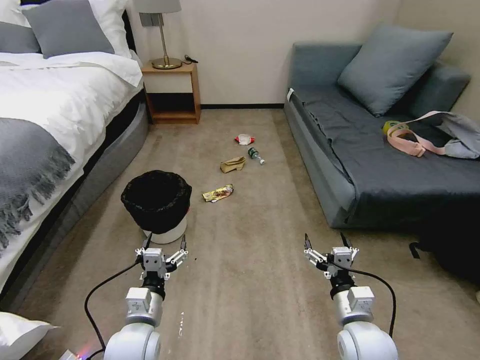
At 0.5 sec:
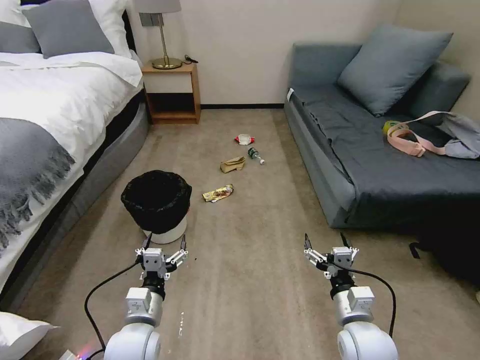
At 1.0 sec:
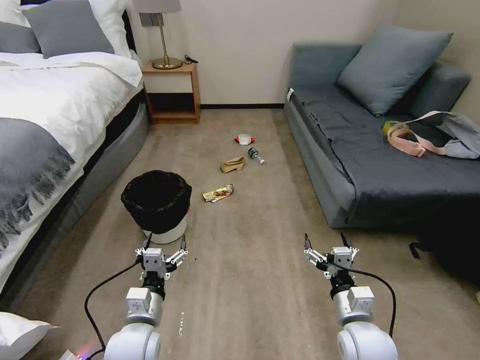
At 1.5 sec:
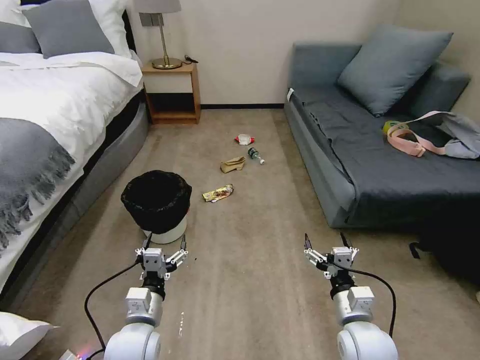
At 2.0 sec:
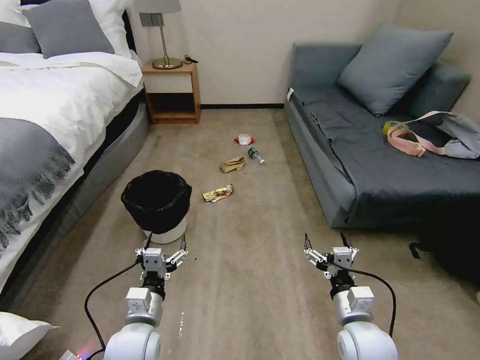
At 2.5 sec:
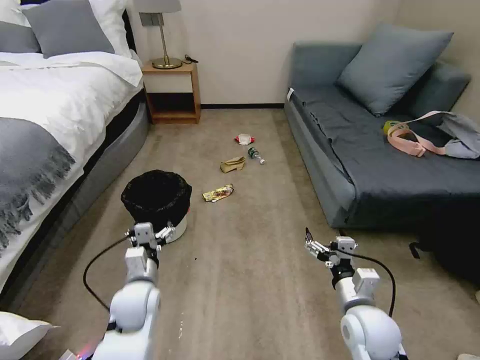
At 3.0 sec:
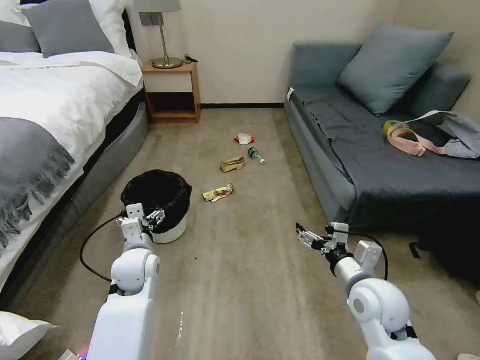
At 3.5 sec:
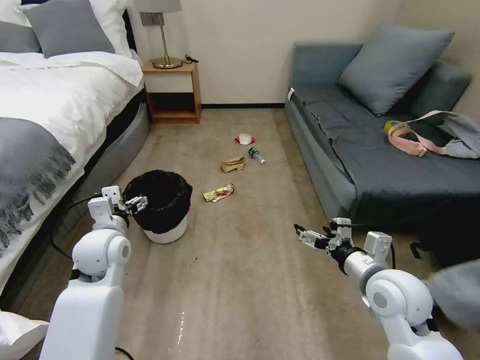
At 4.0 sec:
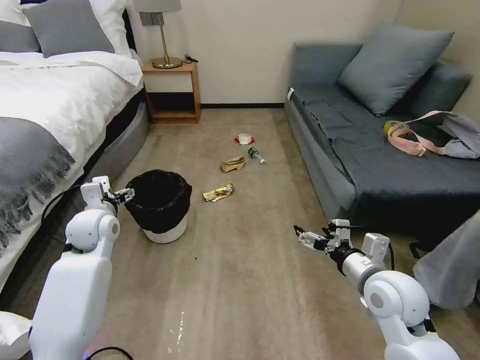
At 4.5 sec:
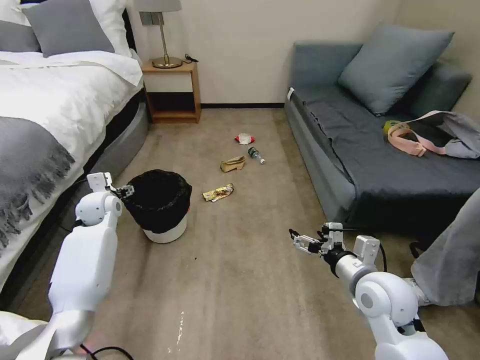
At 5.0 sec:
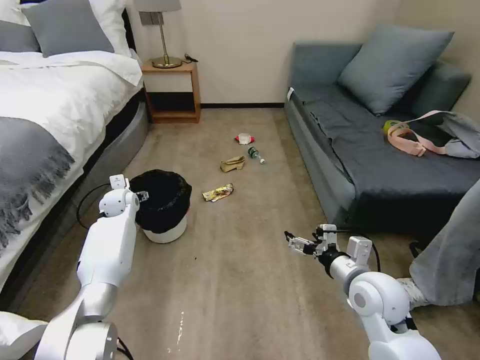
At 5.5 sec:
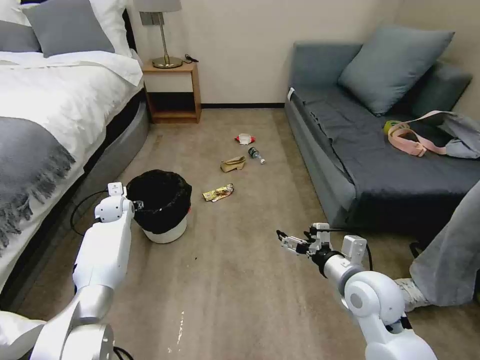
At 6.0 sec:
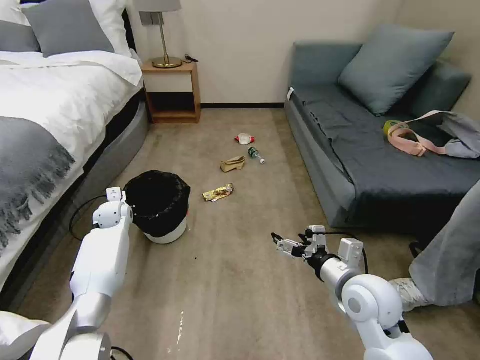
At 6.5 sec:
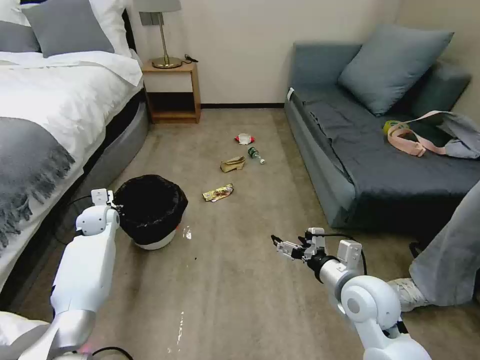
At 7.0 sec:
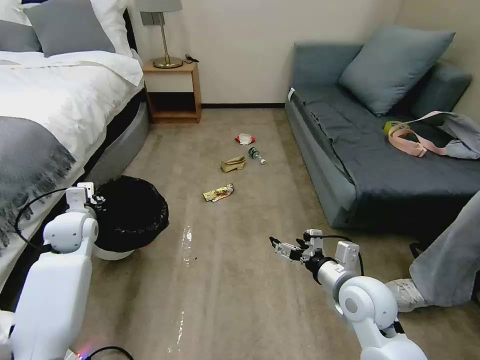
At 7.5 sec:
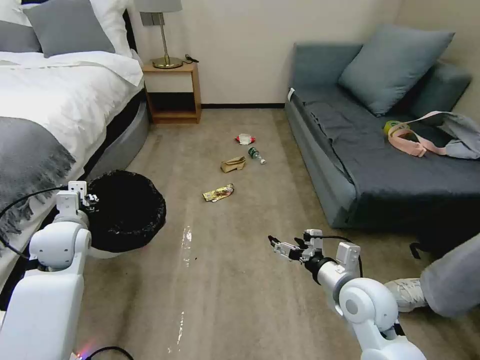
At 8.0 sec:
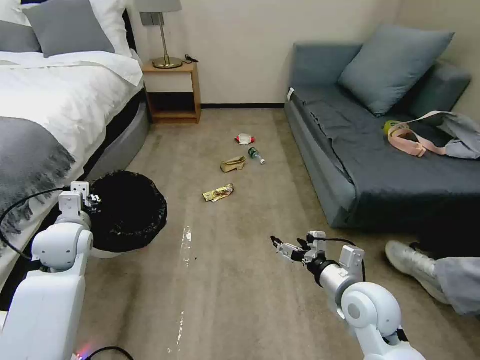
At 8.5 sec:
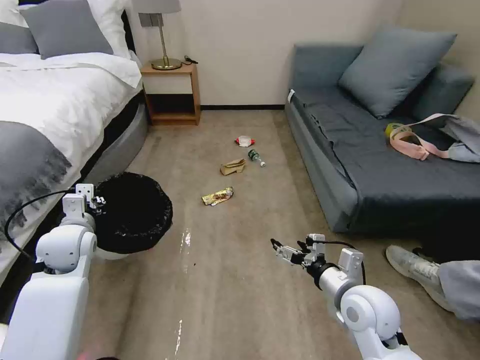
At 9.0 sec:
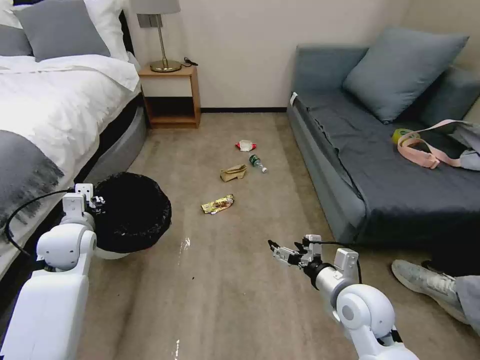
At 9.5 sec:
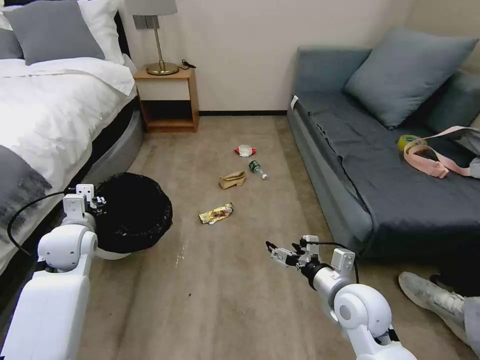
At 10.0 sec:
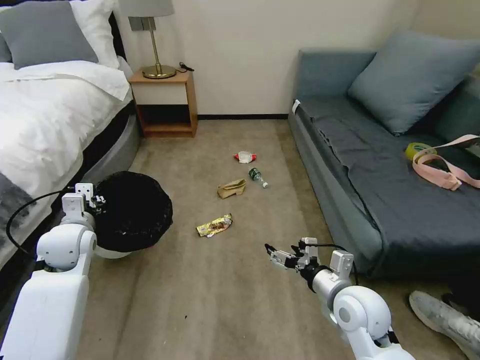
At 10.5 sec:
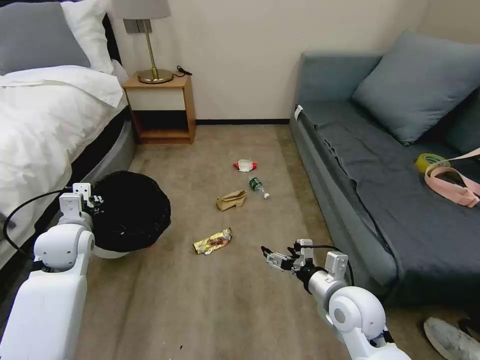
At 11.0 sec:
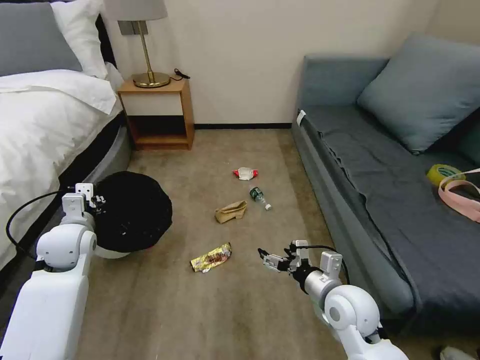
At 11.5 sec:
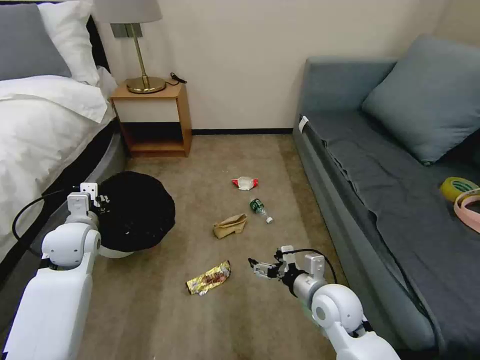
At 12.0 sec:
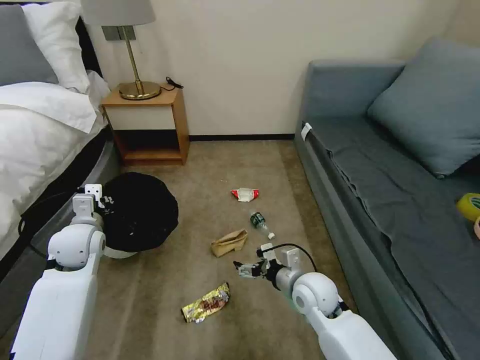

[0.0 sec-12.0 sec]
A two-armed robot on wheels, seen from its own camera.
Task of the whole recording: Pick up the trash bin, then pick up the garbage on the floor and place it into the trash bin.
2.0 sec to 4.0 sec: The right gripper goes some 10 cm upward and forward. Meanwhile the left gripper shifts some 25 cm forward, to the left and upward.
4.0 sec to 6.0 sec: The left gripper heads forward and downward, covering some 15 cm, and closes its fingers.
6.0 sec to 8.0 sec: The left gripper heads backward and upward, covering roughly 20 cm.
10.0 sec to 12.0 sec: The right gripper is displaced to the left, downward and forward by about 10 cm.

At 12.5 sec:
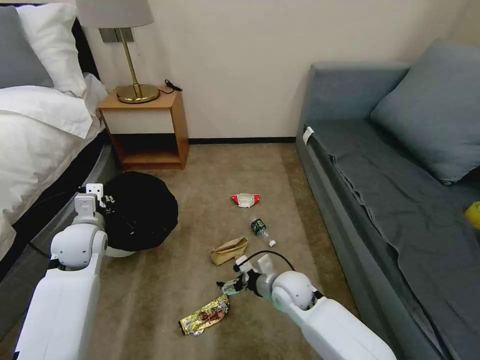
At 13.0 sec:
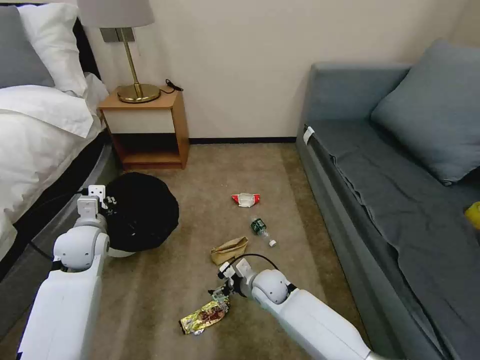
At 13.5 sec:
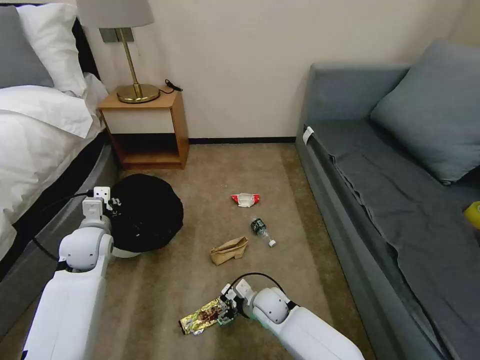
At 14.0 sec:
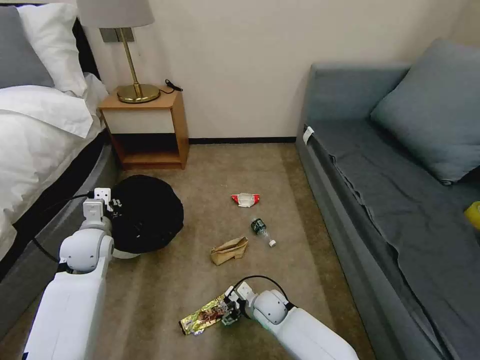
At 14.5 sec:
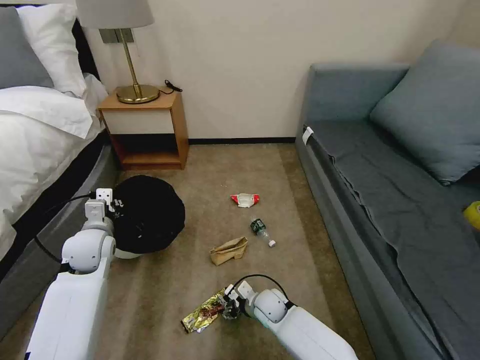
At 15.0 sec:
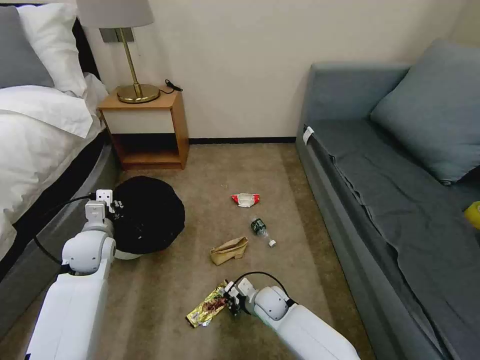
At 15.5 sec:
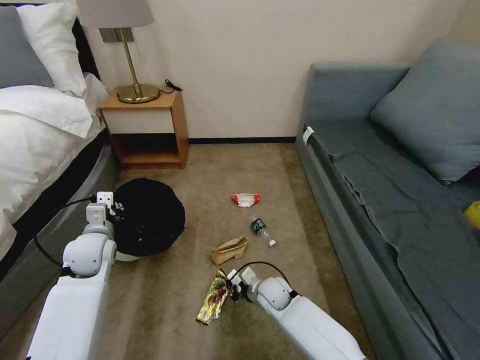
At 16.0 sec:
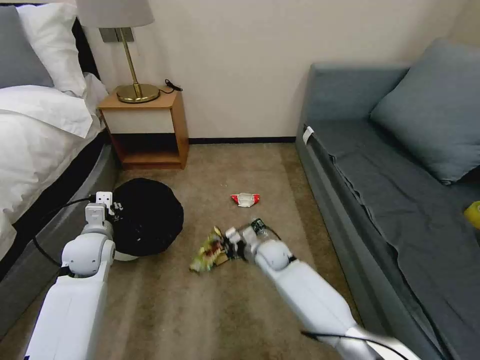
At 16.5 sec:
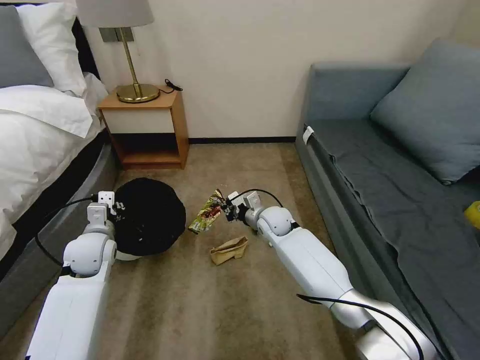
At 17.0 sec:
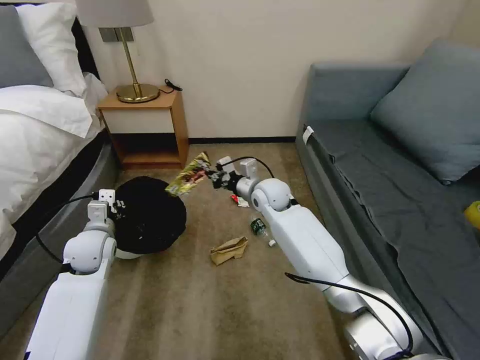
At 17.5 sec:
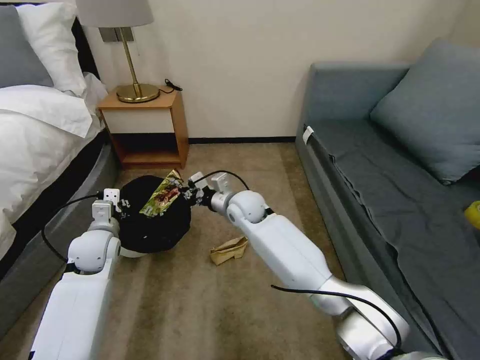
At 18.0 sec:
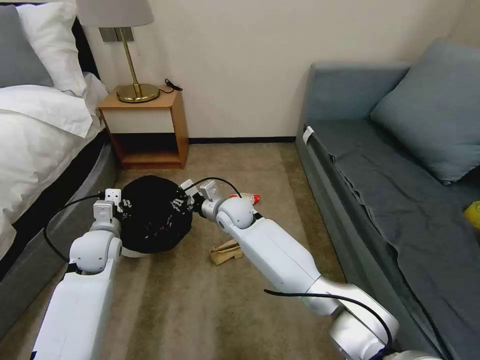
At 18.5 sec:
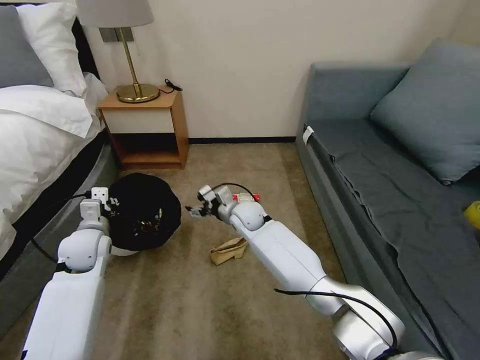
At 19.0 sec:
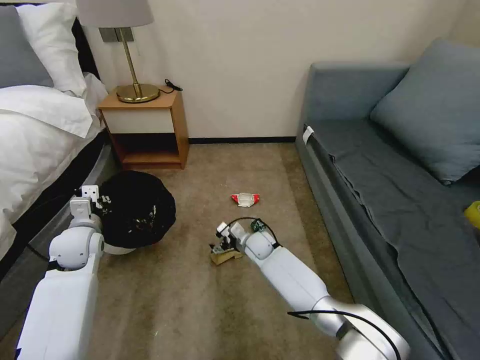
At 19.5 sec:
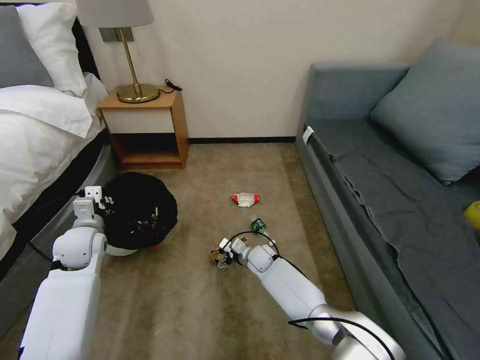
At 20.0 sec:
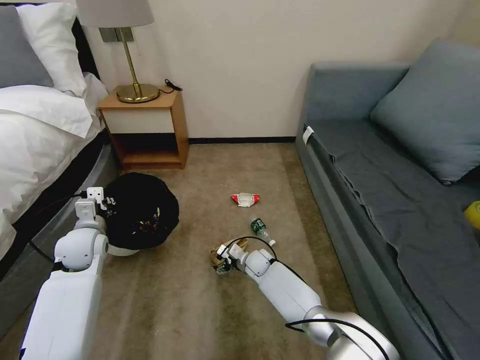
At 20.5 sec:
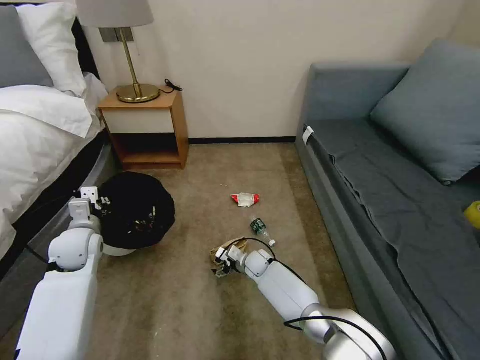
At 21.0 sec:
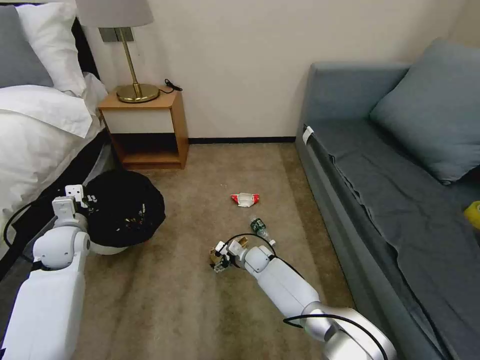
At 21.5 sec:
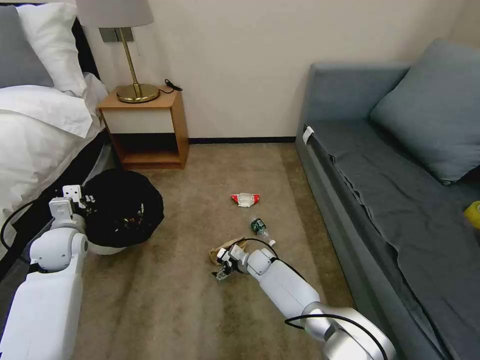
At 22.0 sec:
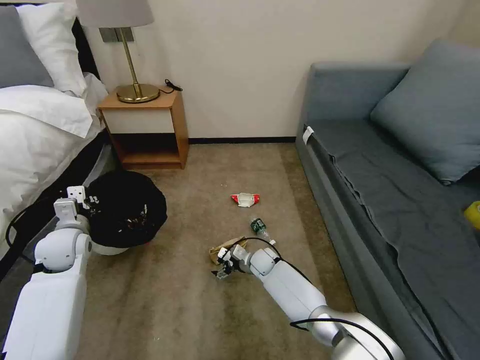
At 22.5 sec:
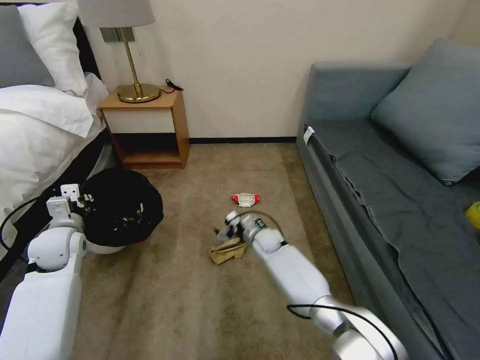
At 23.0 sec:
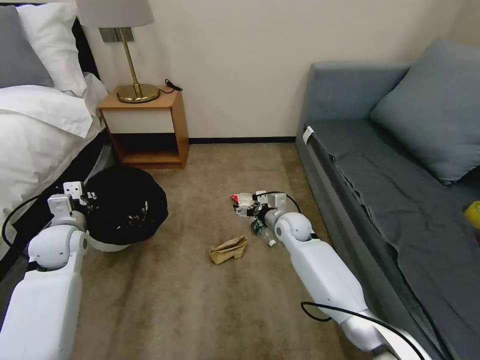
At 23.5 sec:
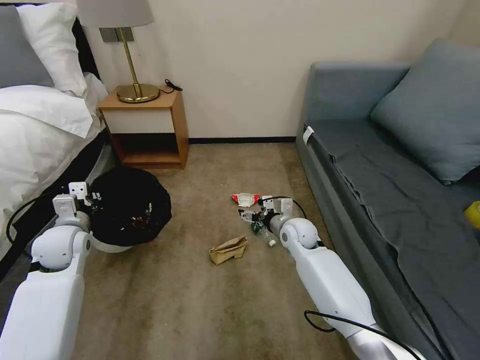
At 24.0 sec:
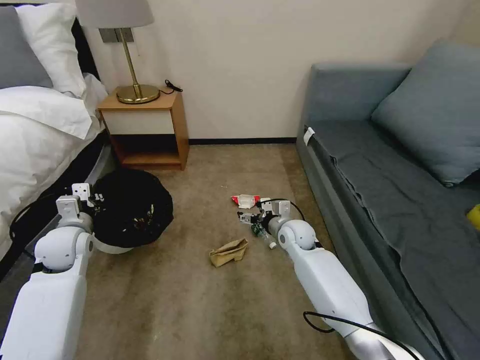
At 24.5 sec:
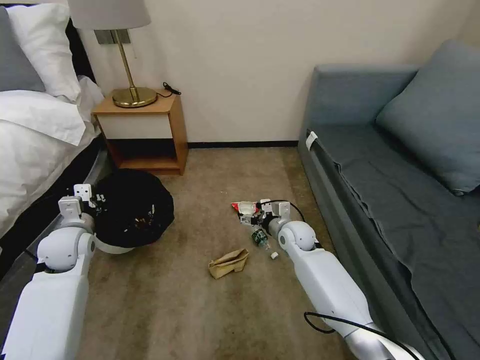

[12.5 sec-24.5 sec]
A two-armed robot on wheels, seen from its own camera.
Task of the whole recording: Pick up the trash bin, then pick up the garbage on the floor and place it into the trash bin.
12.5 sec to 14.5 sec: The right gripper shifts some 10 cm downward, and closes up.
14.5 sec to 16.5 sec: The right gripper heads forward and upward, covering roughly 25 cm, and closes up.
16.5 sec to 18.5 sec: The right gripper is displaced to the left by some 5 cm, and opens up.
18.5 sec to 20.5 sec: The right gripper goes some 15 cm downward.
20.5 sec to 22.5 sec: The right gripper goes approximately 5 cm upward.
22.5 sec to 24.5 sec: The right gripper goes roughly 10 cm upward and to the right.

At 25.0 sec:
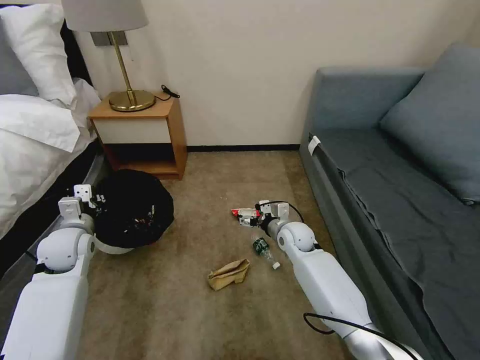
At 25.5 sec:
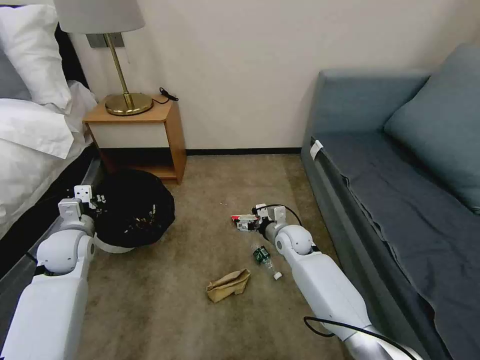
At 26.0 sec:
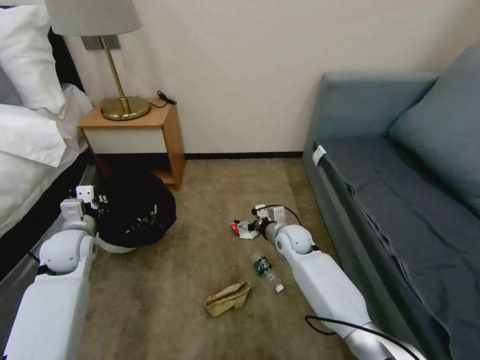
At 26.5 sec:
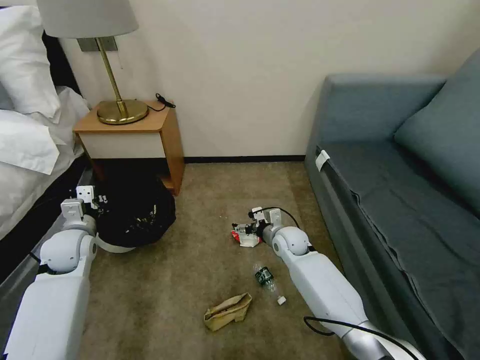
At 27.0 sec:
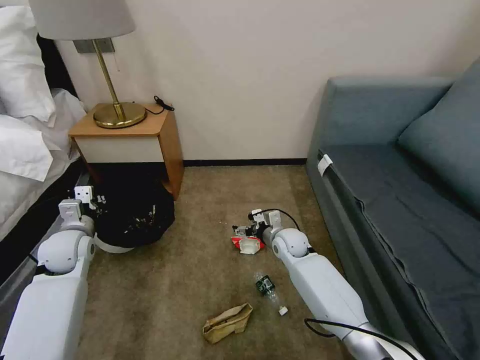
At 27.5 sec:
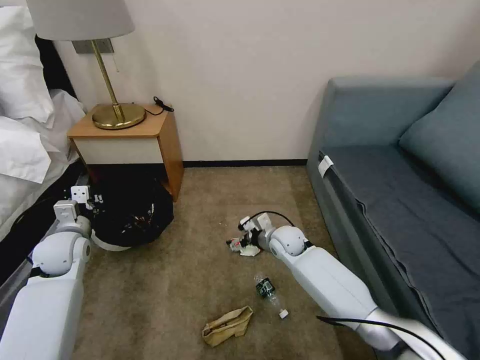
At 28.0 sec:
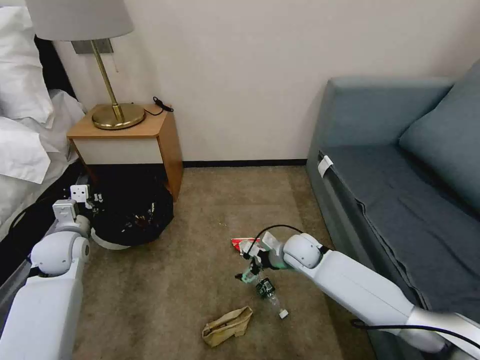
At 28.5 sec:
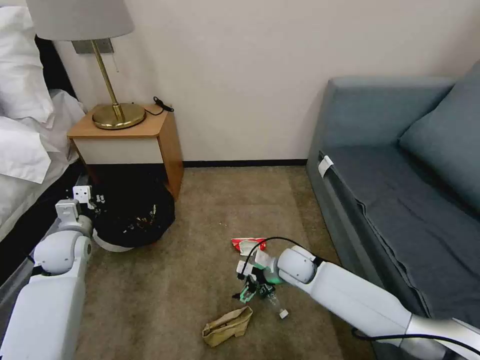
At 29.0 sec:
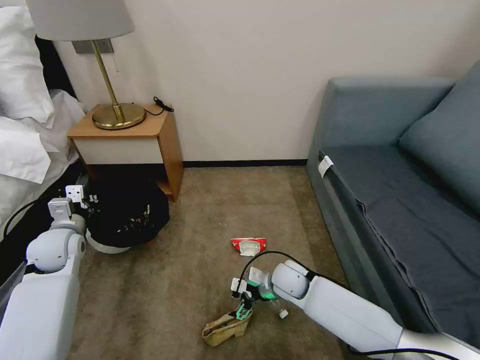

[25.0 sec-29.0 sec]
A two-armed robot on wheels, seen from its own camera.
Task of the whole recording: Pick up the trash bin, then pick up the garbage on the floor and place it into the trash bin.
27.0 sec to 29.0 sec: The right gripper is displaced backward by approximately 10 cm.
